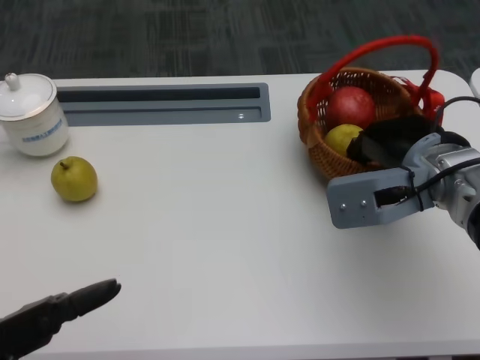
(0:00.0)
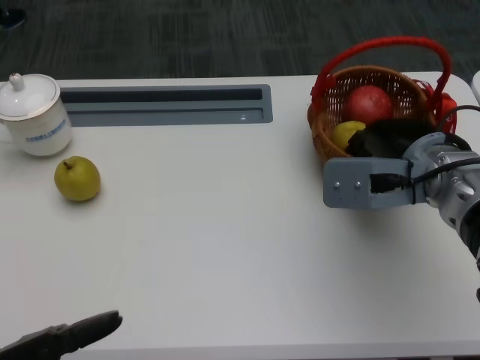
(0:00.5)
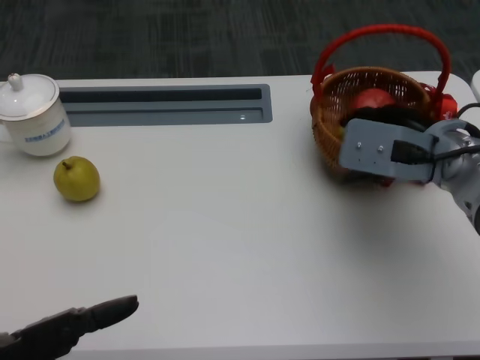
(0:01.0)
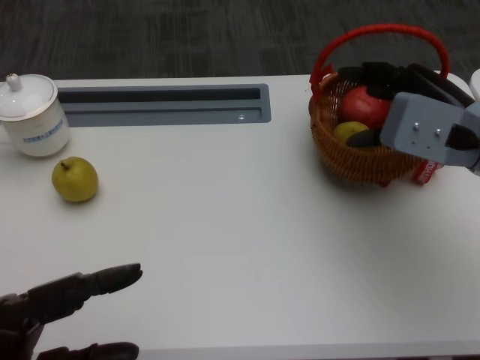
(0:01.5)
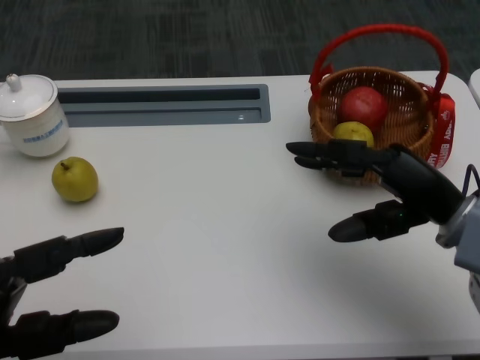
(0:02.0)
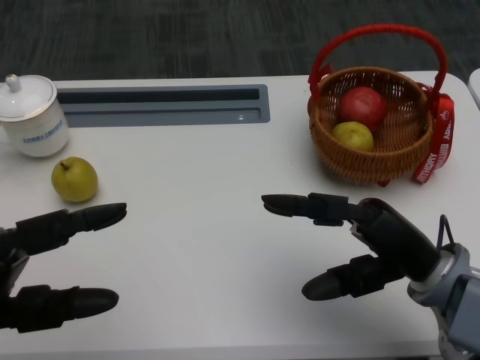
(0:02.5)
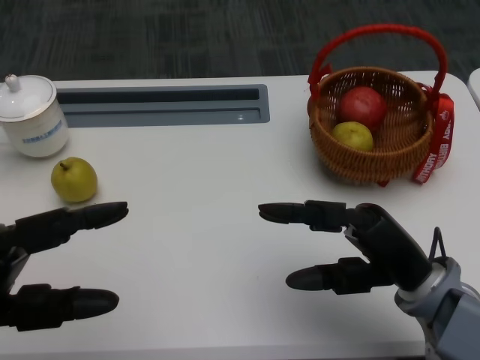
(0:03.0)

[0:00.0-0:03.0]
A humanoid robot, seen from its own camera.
0:01.5 to 0:03.0: The left hand is displaced forward by roughly 5 cm; the right hand goes some 15 cm backward and downward.

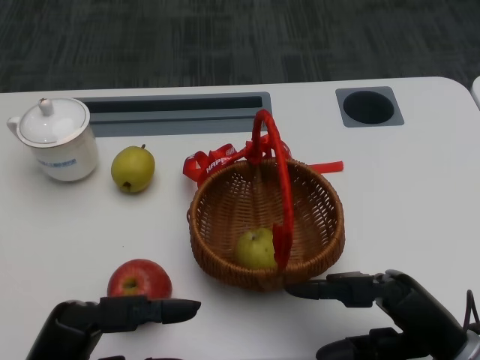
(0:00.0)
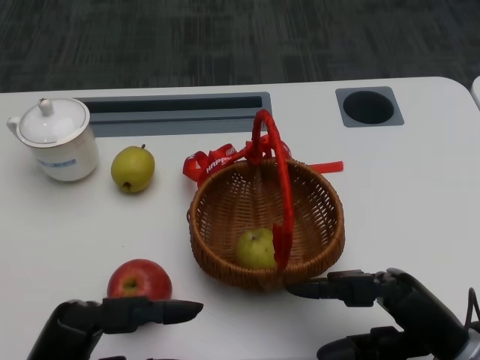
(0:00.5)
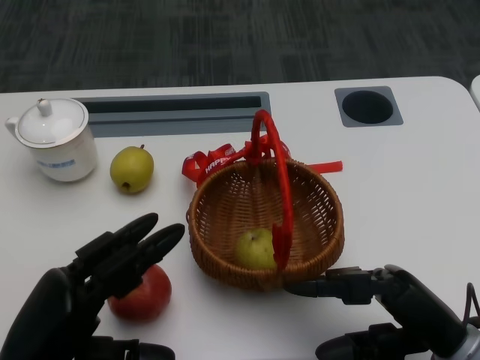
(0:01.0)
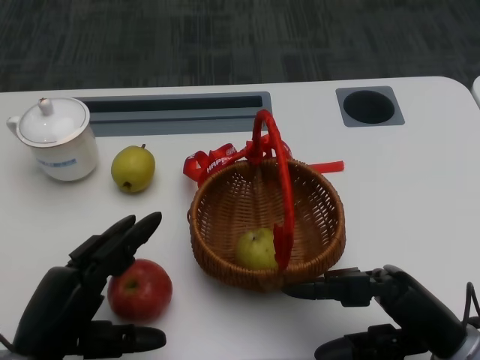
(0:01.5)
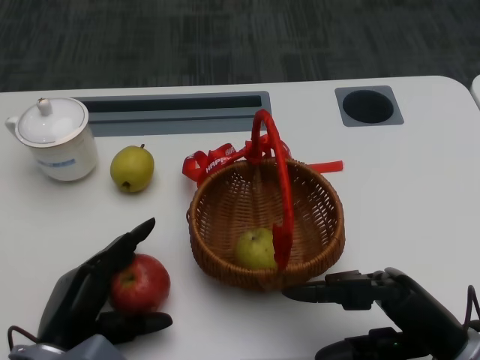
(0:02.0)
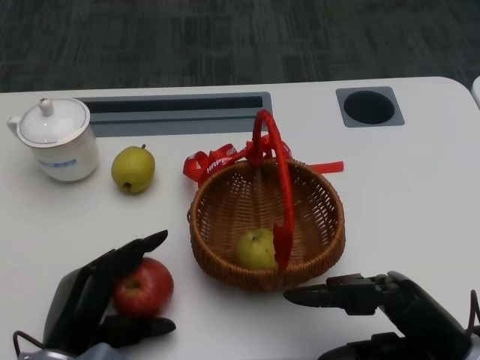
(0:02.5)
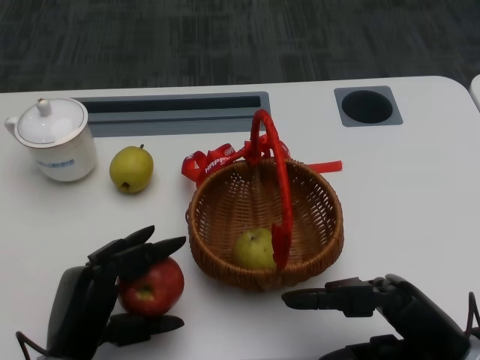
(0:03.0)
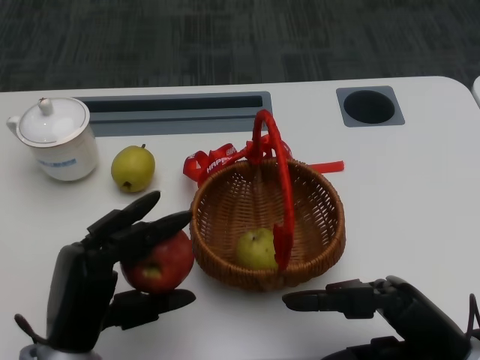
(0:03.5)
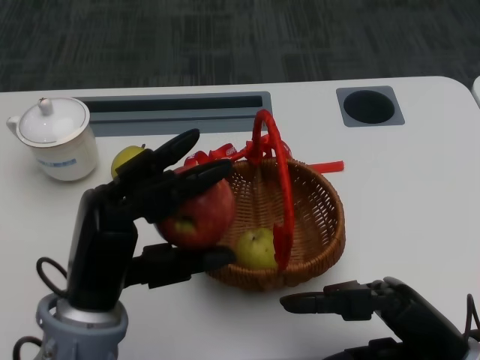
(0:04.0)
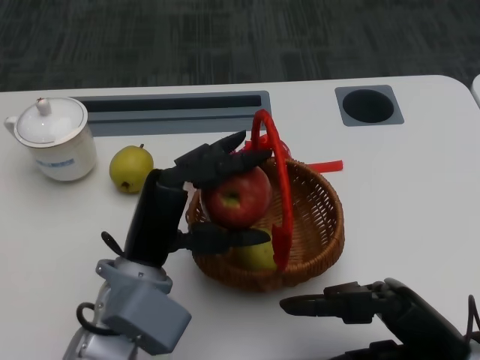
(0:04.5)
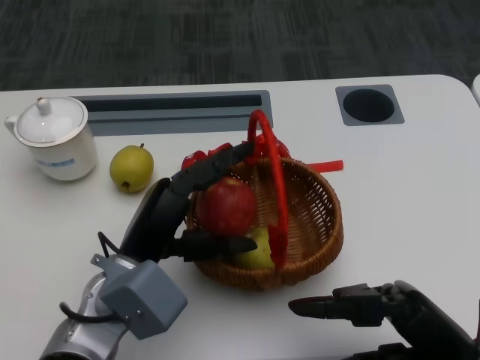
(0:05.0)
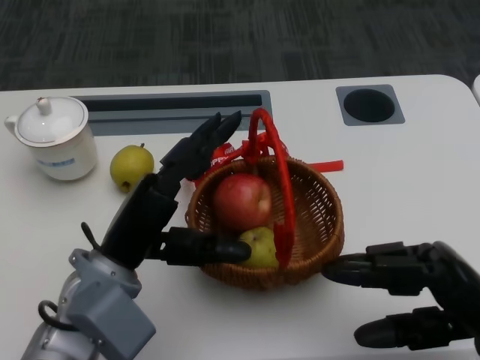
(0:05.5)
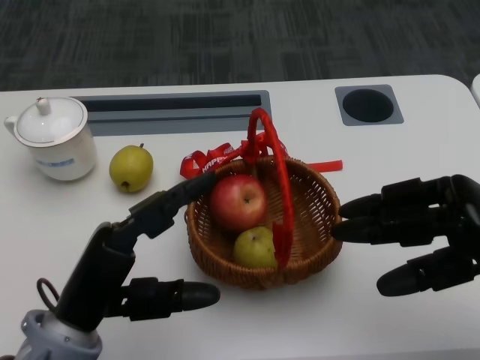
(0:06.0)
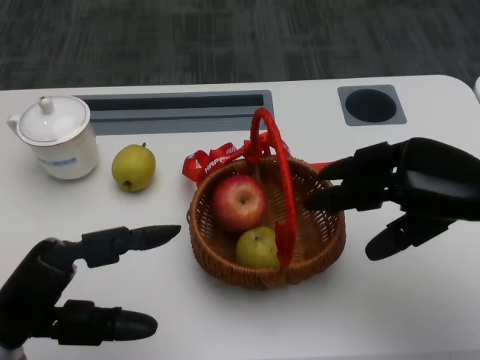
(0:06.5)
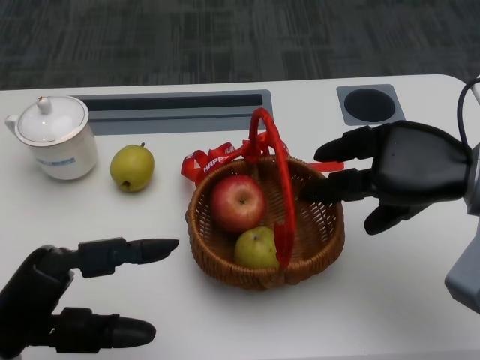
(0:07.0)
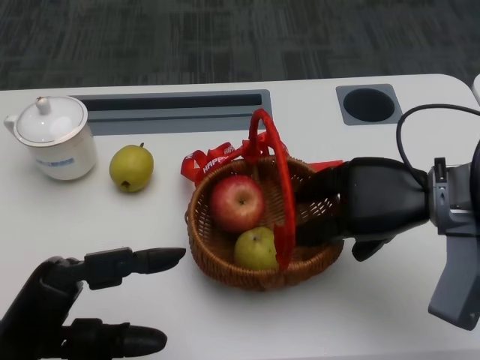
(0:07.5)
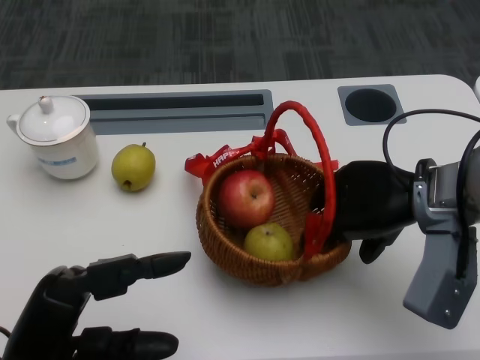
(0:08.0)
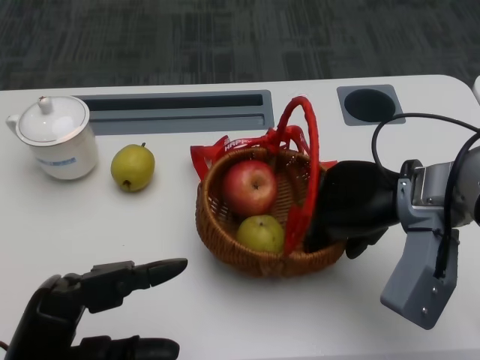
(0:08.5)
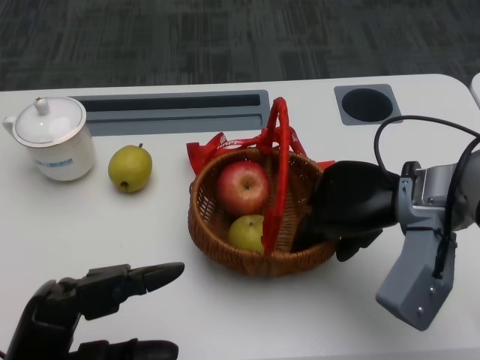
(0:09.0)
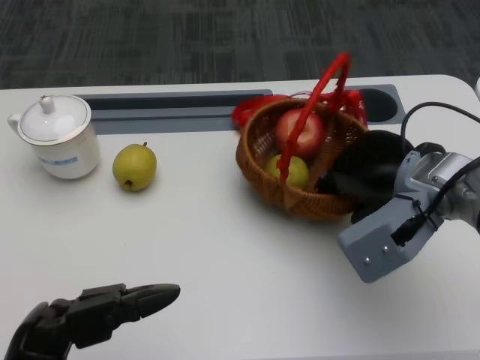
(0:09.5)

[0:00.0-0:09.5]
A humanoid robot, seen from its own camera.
Step, 0:01.0 to 0:01.5: Grasp the apple with the left gripper.
Step, 0:02.0 to 0:04.0: Place the apple into the basket with the left gripper.
Step, 0:04.5 to 0:06.5: Grasp the basket with the right gripper.
Step, 0:07.0 to 0:08.5: Move the basket to the front of the table with the right gripper.
0:02.0 to 0:04.0: The left hand heads upward and to the right, covering about 10 cm.
0:04.0 to 0:05.5: The left hand moves forward, some 5 cm.
0:05.5 to 0:07.5: The left hand is displaced to the left and backward by about 10 cm; the right hand travels forward and upward by roughly 15 cm.

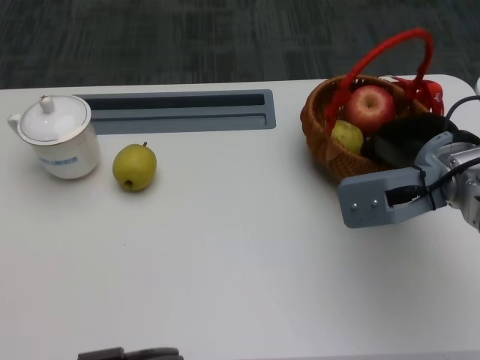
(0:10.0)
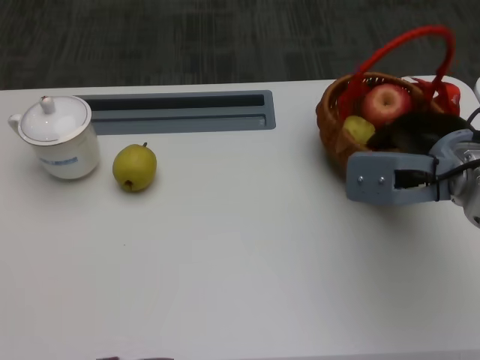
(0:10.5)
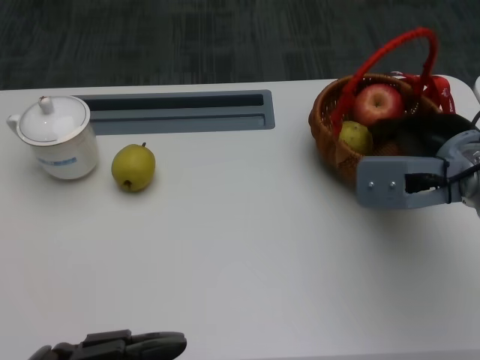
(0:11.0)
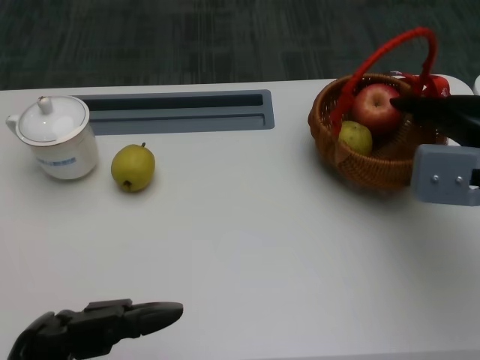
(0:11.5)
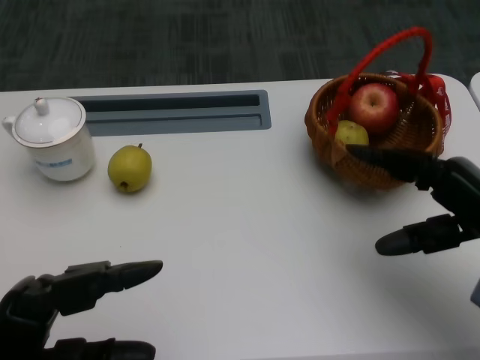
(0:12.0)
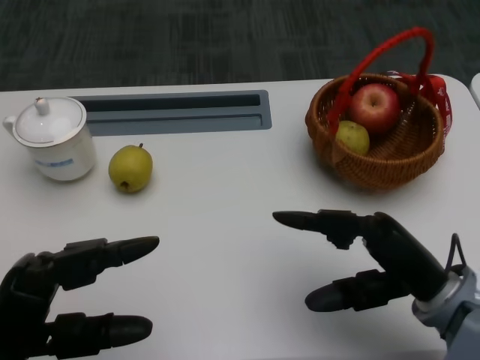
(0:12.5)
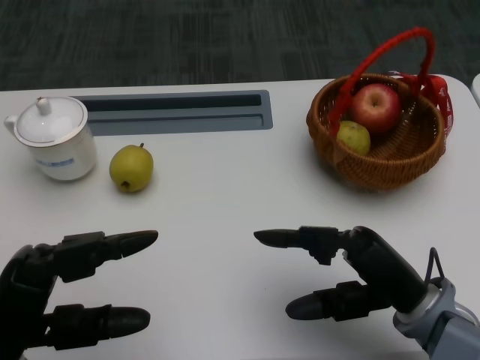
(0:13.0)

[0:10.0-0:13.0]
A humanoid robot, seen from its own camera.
0:10.0 to 0:11.5: The right hand travels to the right by roughly 5 cm.
0:11.5 to 0:13.0: The right hand travels backward, downward and to the left by some 15 cm. Meanwhile the left hand moves forward, some 5 cm.
